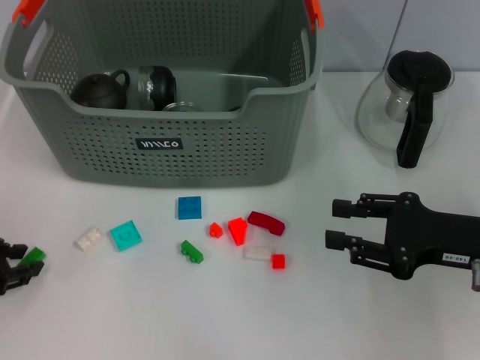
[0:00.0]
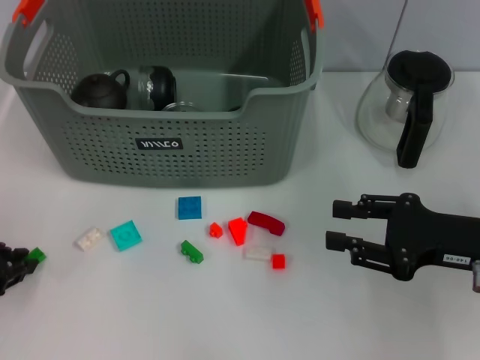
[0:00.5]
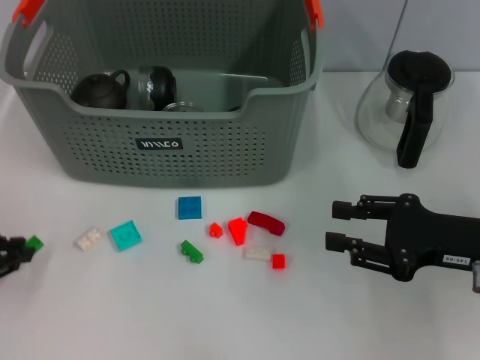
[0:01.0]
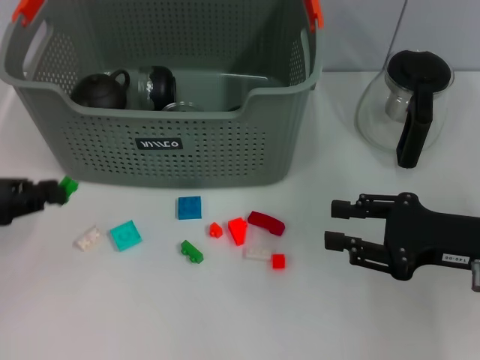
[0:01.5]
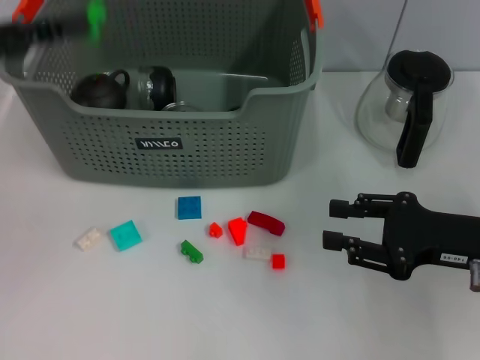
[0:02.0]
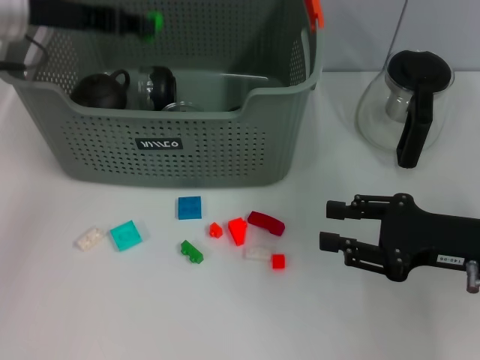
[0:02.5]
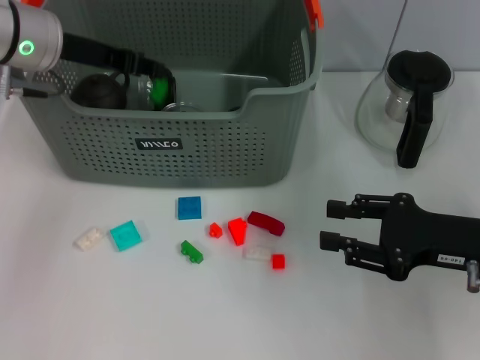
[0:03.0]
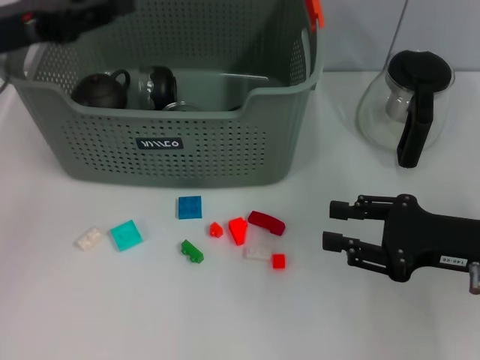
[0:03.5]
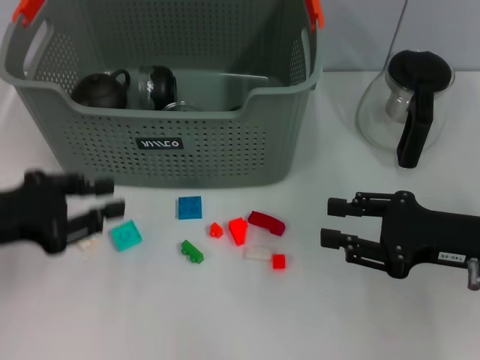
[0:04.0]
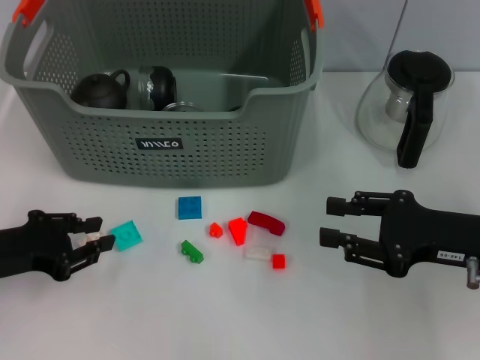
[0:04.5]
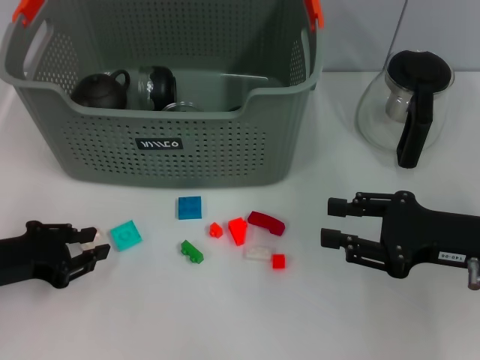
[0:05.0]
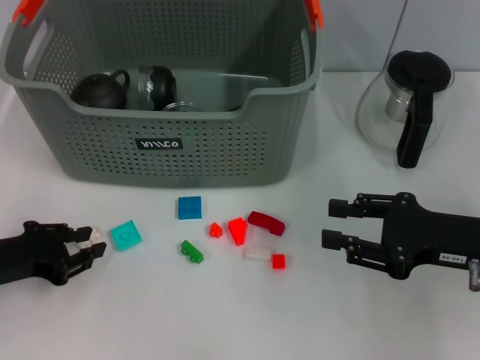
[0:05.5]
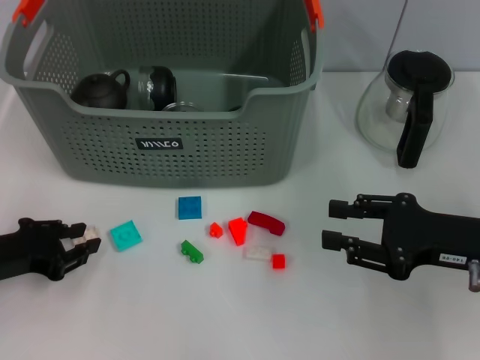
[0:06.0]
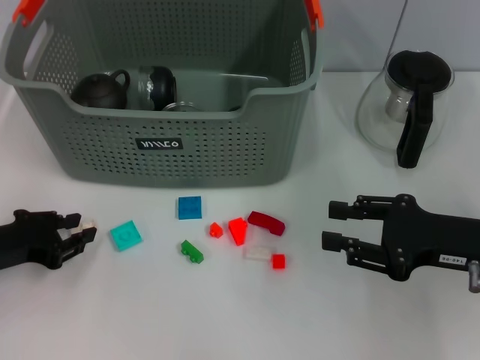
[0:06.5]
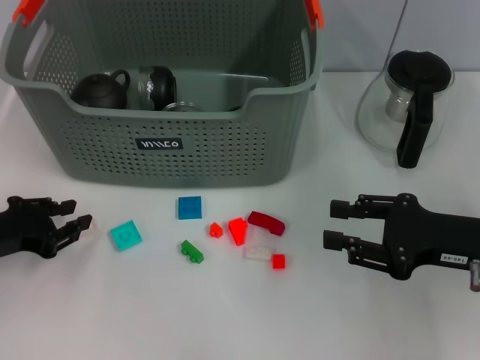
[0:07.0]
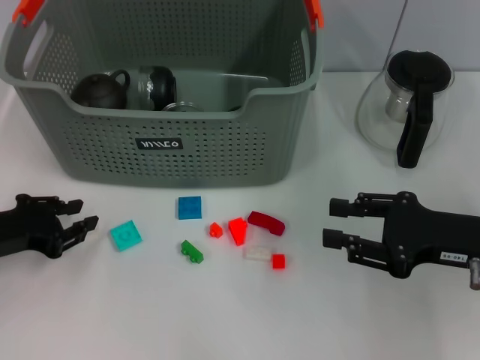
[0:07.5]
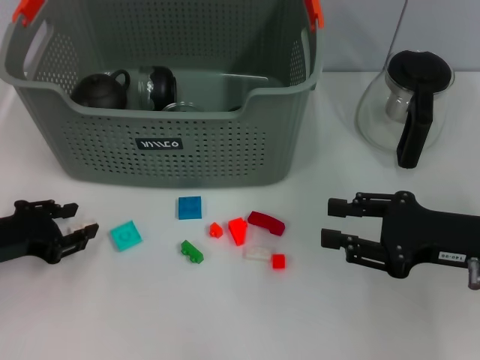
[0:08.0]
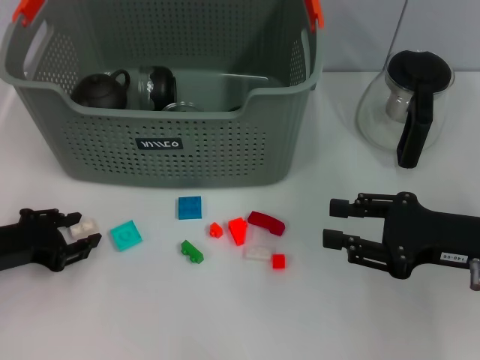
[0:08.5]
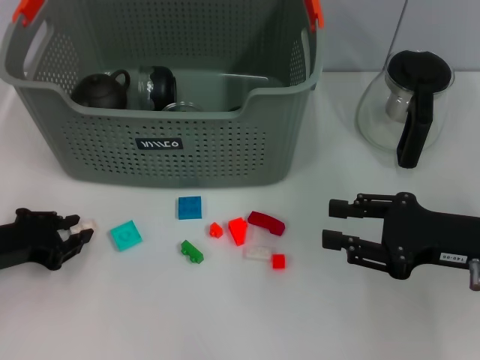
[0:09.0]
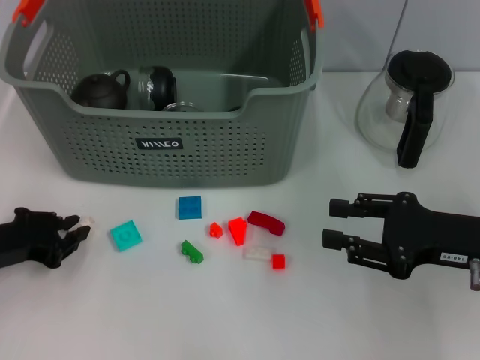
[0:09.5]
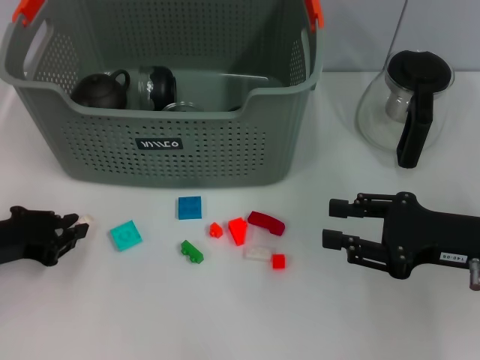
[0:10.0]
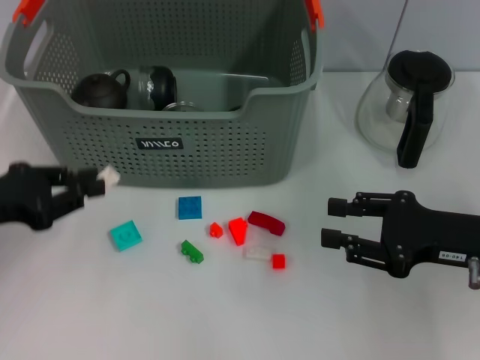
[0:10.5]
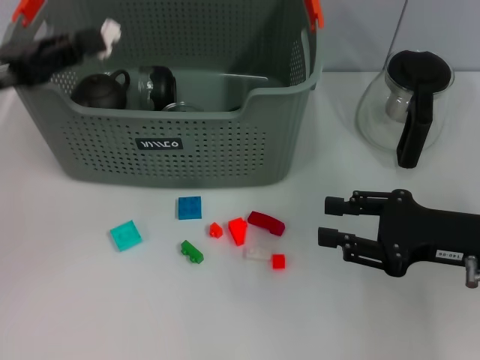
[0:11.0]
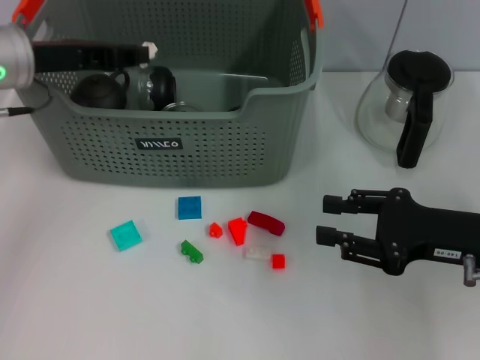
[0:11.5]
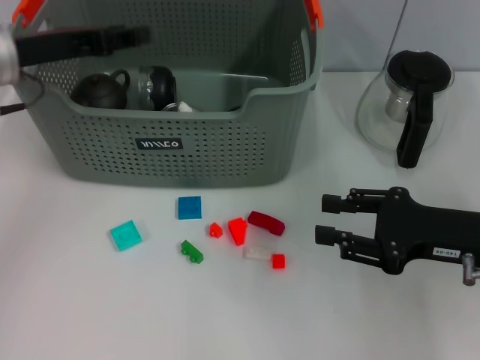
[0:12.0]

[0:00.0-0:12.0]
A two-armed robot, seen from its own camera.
Task of the whole recording: pick up the teacup on the table and place it into the storage bin, pick up the block on the table and place it into the storage bin.
Step, 0:01.0 to 0:03.0: Place the green block in the storage box with left gripper.
Step, 0:03.5 to 0:09.5: Grasp the white block with left gripper.
0:00.0 to 0:02.0: The left gripper is displaced upward and forward by approximately 15 cm.
0:02.0 to 0:04.0: The left gripper travels downward and backward by roughly 10 cm.
0:04.0 to 0:06.0: The left gripper shifts some 10 cm downward.
0:06.0 to 0:10.0: There are only small adjustments of the grippers.
0:10.0 to 0:12.0: The left gripper travels upward, forward and to the right by about 20 cm.

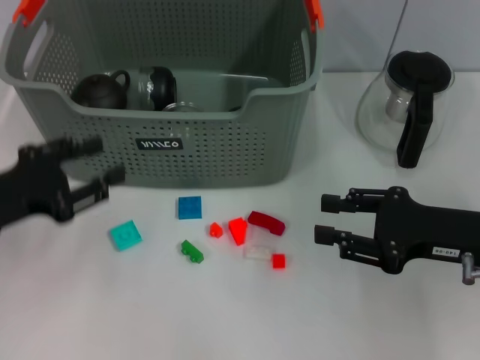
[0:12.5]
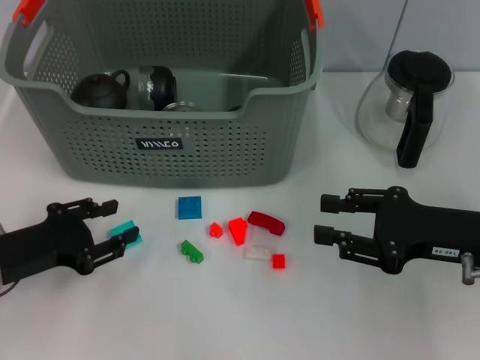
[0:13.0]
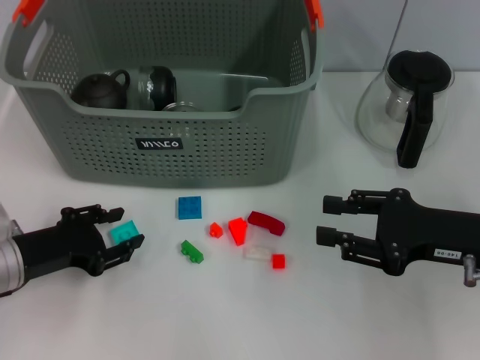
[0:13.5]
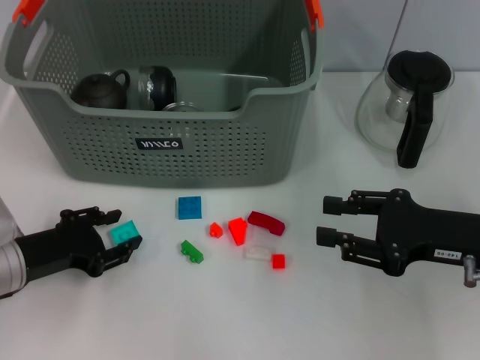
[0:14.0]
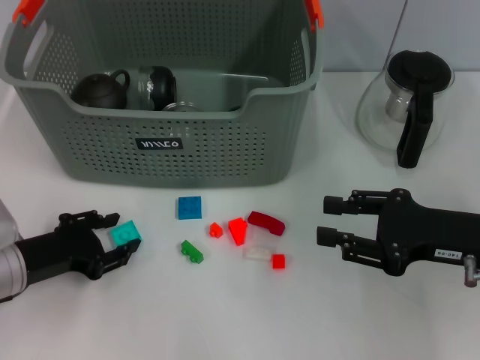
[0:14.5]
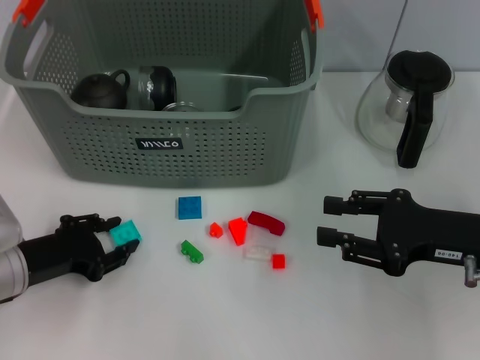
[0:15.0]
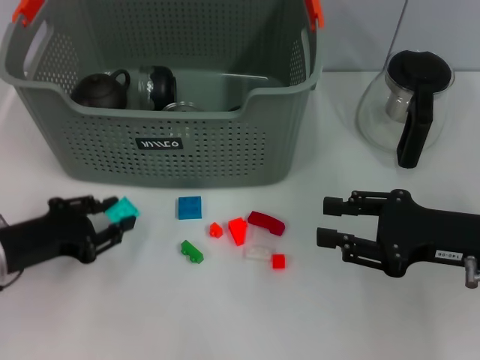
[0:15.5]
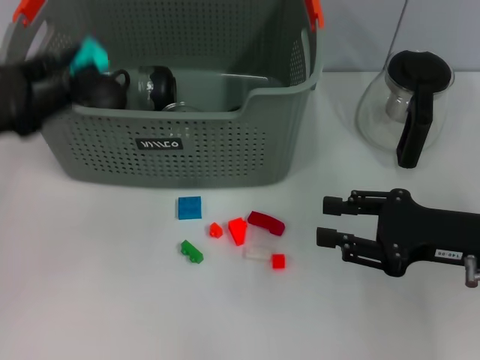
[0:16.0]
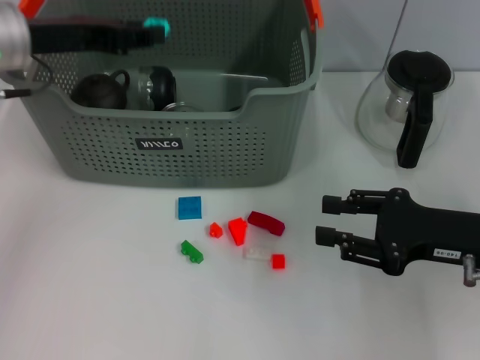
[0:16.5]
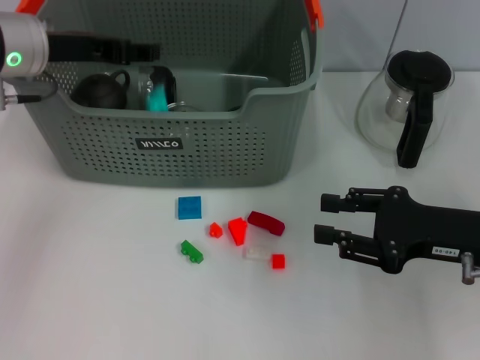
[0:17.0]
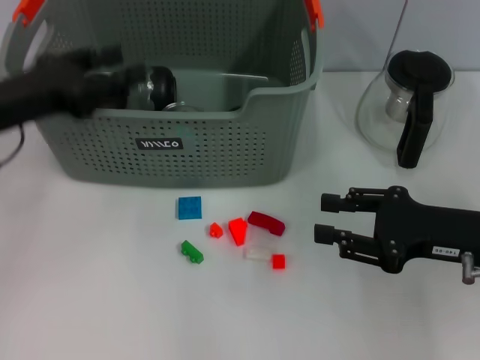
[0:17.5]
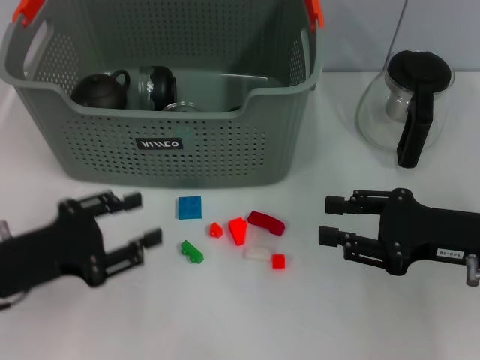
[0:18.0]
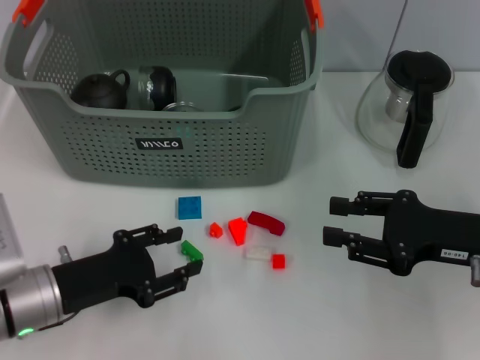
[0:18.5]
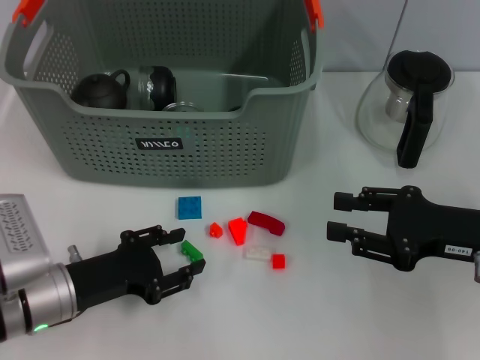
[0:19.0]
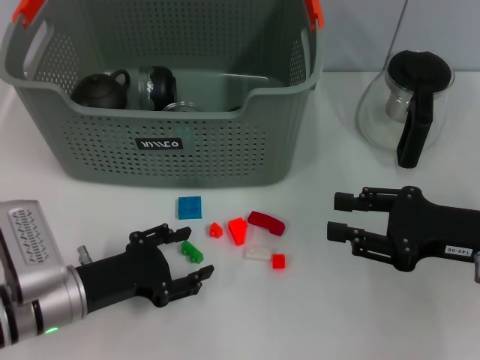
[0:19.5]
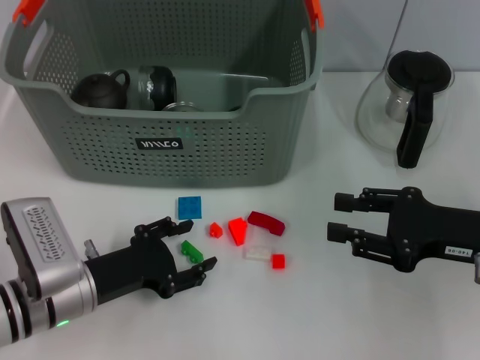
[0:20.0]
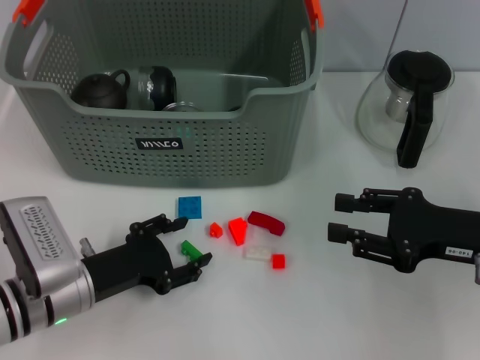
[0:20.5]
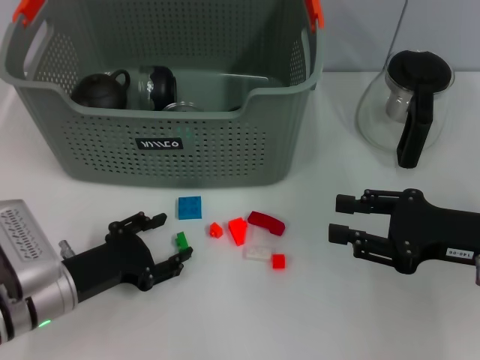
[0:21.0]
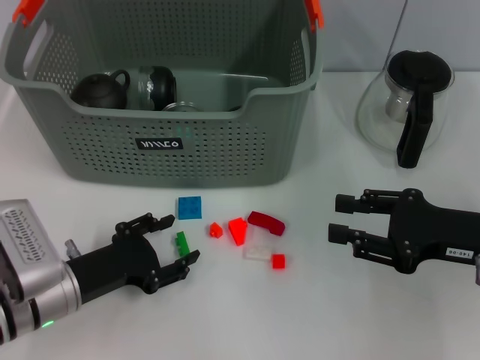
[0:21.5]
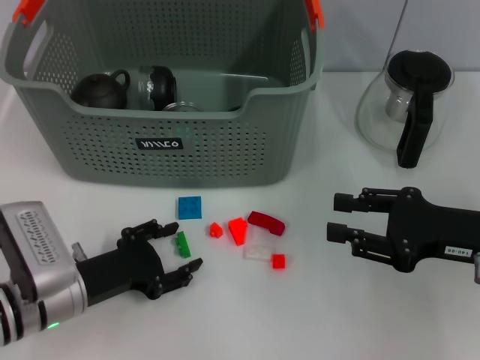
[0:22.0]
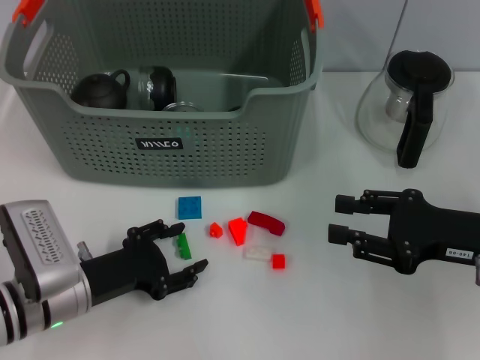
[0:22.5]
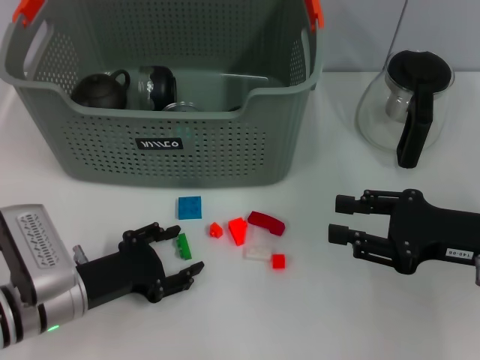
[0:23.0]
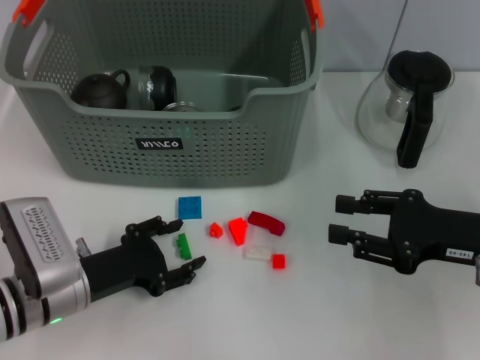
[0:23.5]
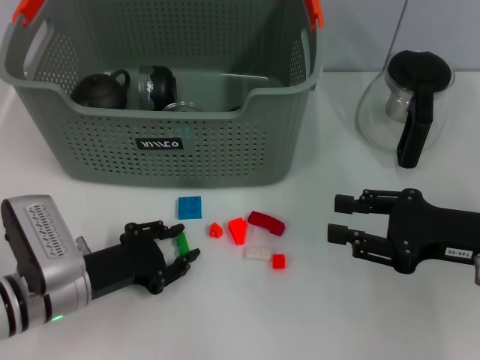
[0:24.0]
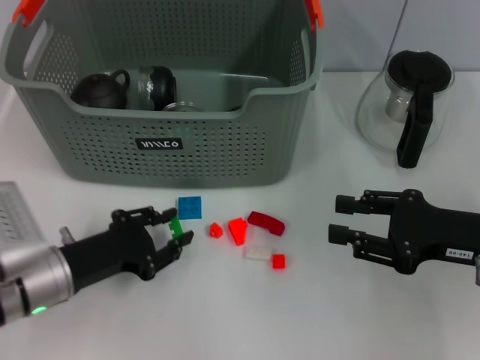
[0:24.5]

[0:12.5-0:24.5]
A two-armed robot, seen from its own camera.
Task of the whole recording: pick up the teacup on the table and place it into the storage bin, pick up the block on the table and place it into the storage bin.
Step, 0:12.5 to 0:15.0: Grasp the light blue block with left gripper.
Step, 0:15.5 to 0:17.0: Place the light blue block in the storage box with left gripper.
Step, 0:17.5 to 0:24.0: Grasp the green block with left gripper.
0:12.5 to 0:14.5: The left gripper travels downward by roughly 10 cm.
0:14.5 to 0:16.5: The left gripper goes some 20 cm upward and forward.
0:16.5 to 0:18.5: The left gripper is displaced downward and backward by some 25 cm.
0:18.5 to 0:22.5: The grippers move only a little.
0:22.5 to 0:24.5: The left gripper closes its fingers.

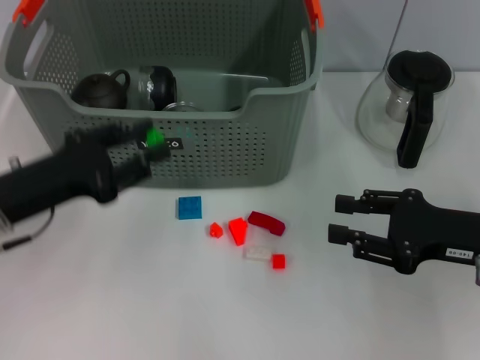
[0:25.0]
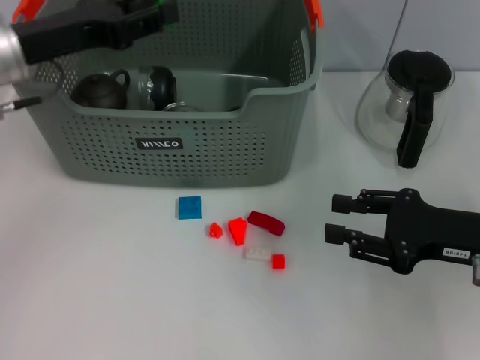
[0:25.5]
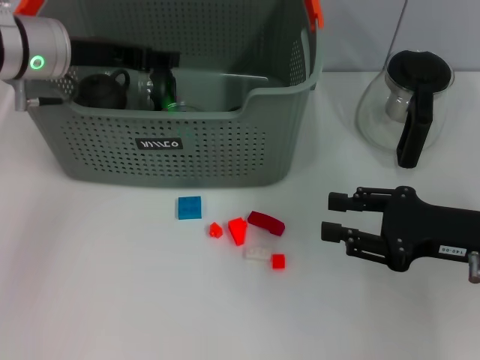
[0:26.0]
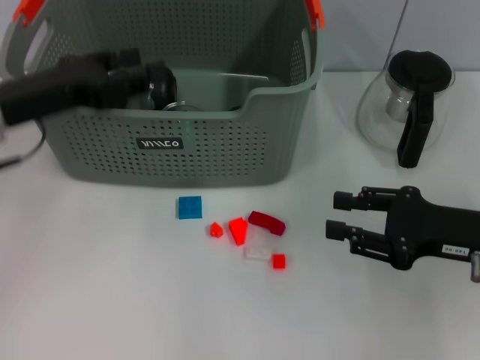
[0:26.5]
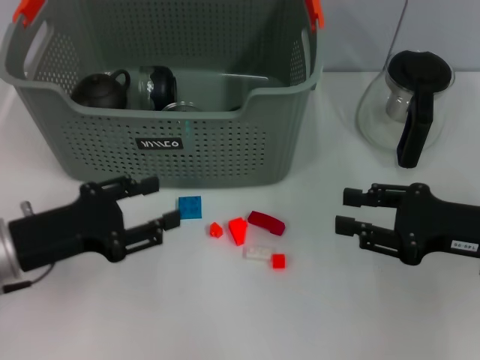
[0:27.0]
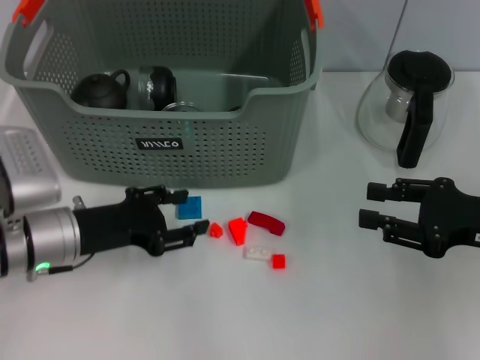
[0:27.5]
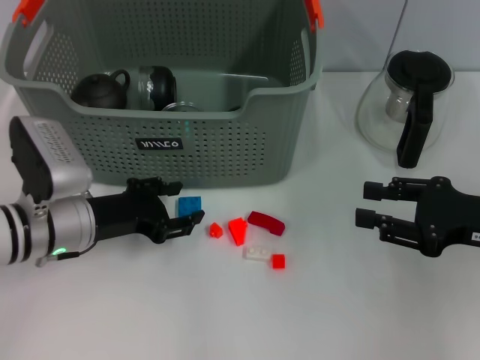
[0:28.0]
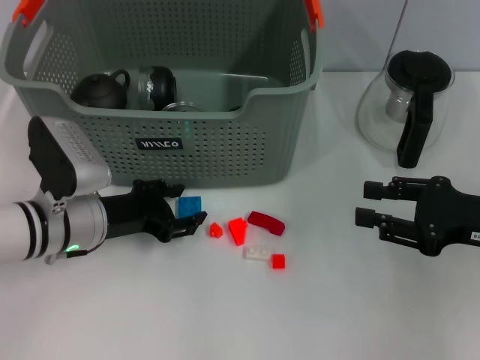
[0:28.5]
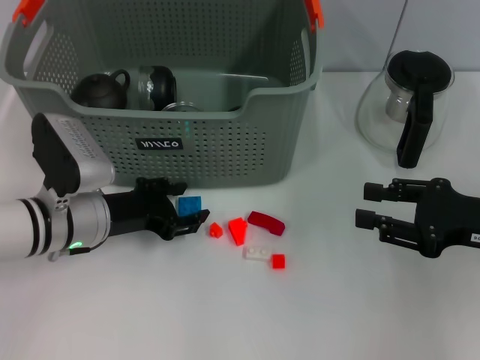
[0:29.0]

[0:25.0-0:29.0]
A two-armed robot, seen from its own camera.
Task of the whole recording: pick up the teacup on the table and place it into the storage bin, pick up the block on the table and place it into the storage bin.
Step, 0:25.0 to 0:26.0: Place the green block in the storage box with left gripper.
0:25.0 to 0:27.0: The left gripper moves about 15 cm forward and comes back.
0:27.0 to 0:29.0: The left gripper shifts roughly 10 cm forward and to the right.
